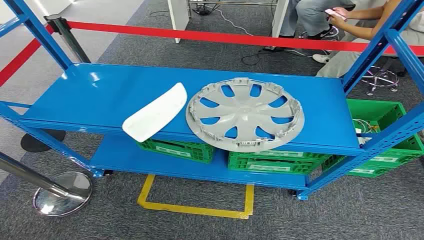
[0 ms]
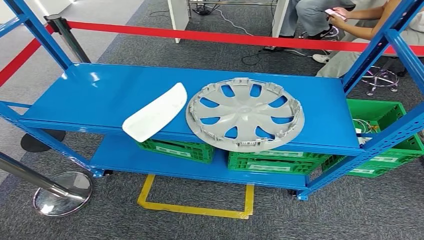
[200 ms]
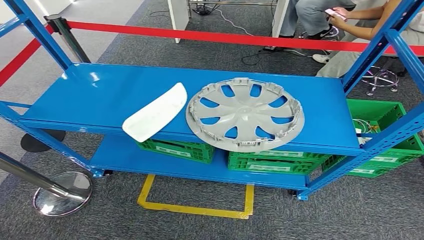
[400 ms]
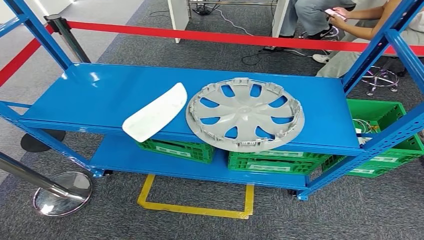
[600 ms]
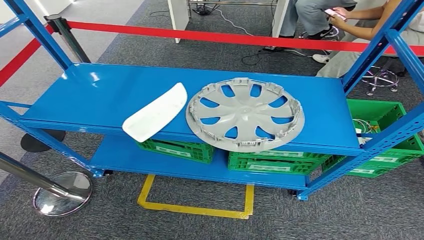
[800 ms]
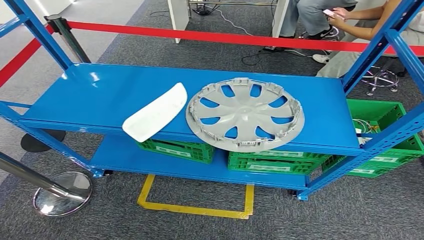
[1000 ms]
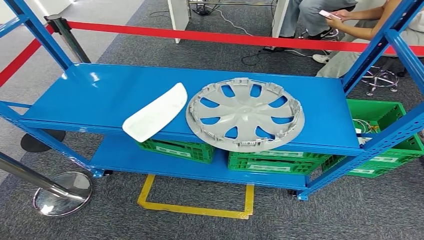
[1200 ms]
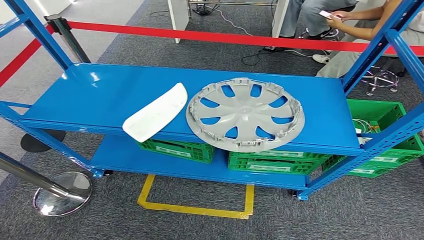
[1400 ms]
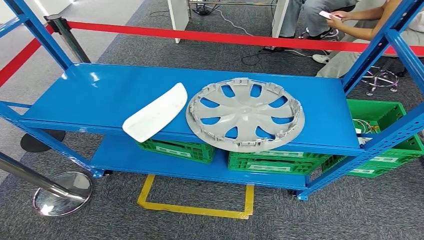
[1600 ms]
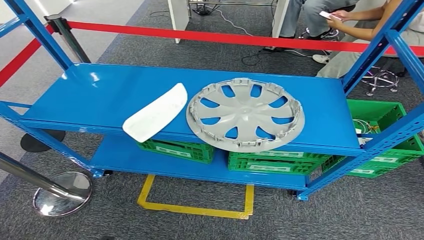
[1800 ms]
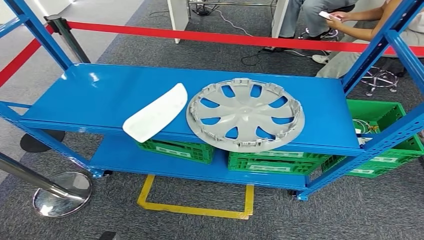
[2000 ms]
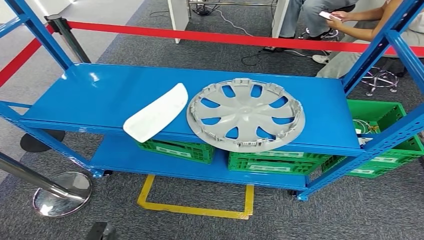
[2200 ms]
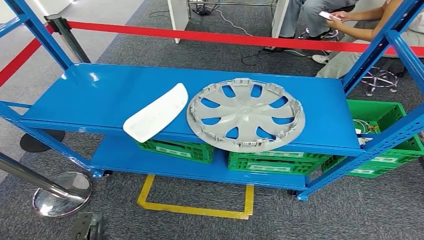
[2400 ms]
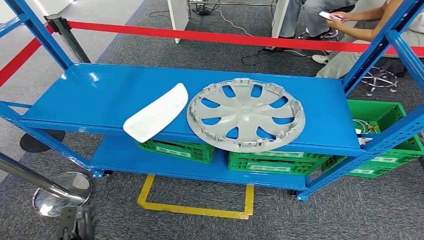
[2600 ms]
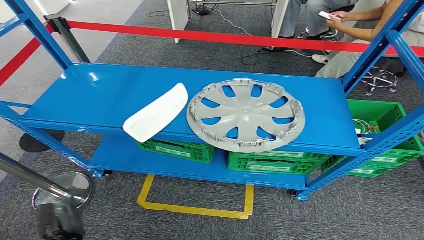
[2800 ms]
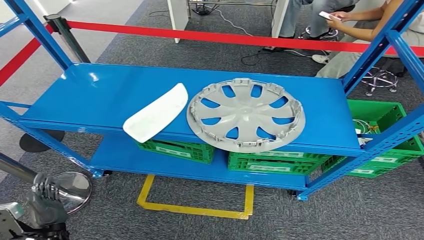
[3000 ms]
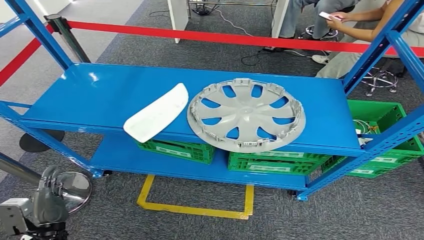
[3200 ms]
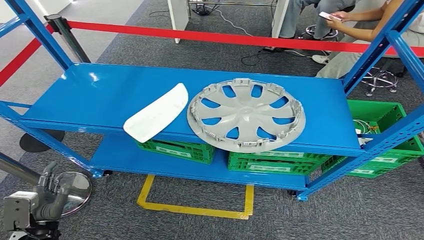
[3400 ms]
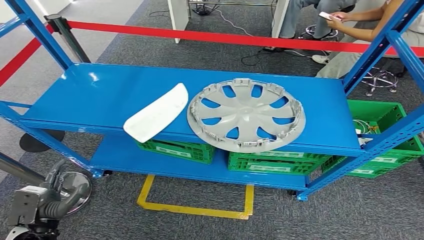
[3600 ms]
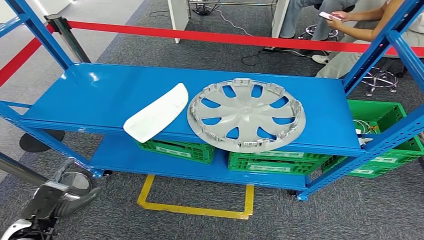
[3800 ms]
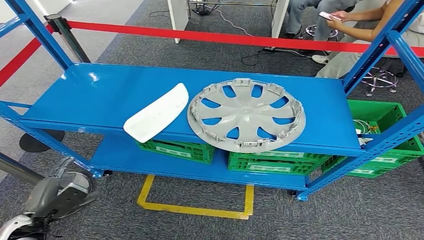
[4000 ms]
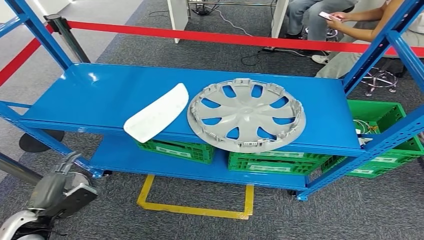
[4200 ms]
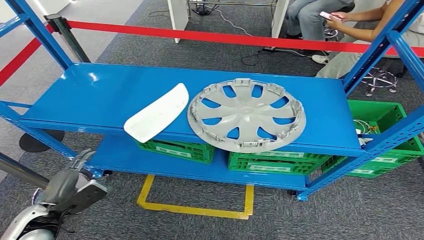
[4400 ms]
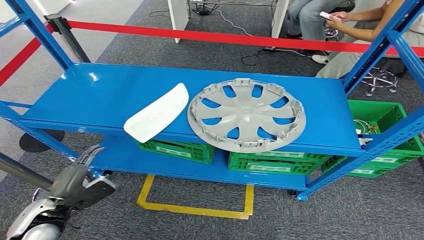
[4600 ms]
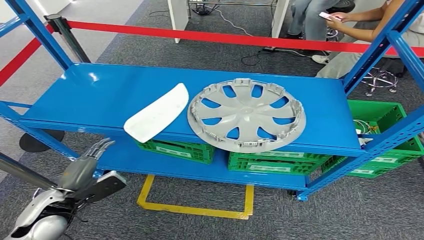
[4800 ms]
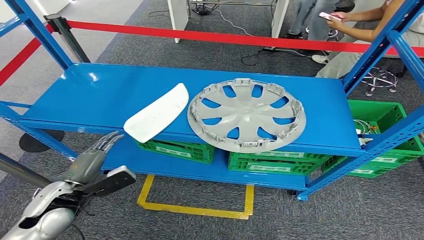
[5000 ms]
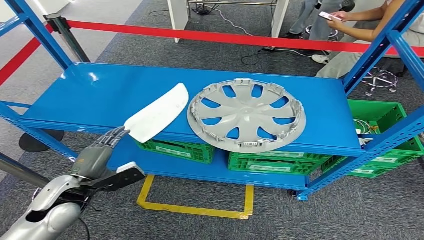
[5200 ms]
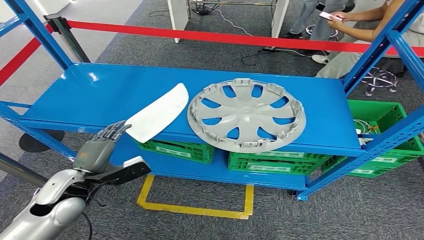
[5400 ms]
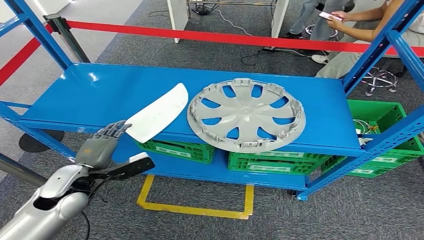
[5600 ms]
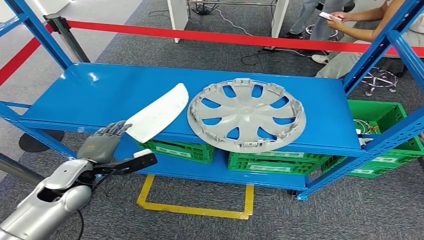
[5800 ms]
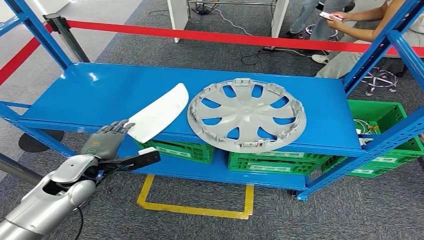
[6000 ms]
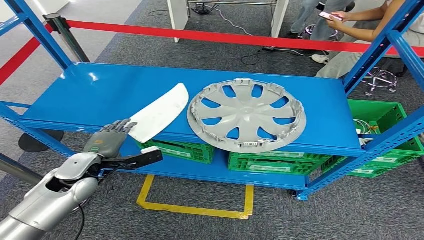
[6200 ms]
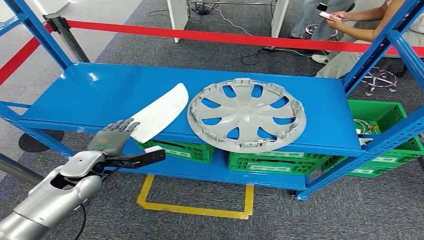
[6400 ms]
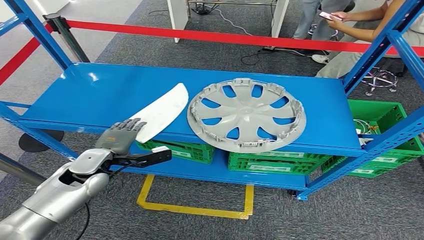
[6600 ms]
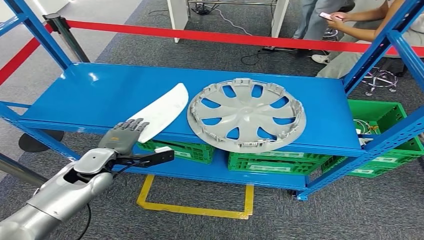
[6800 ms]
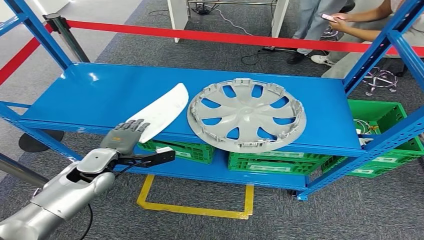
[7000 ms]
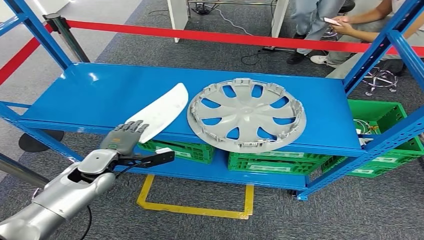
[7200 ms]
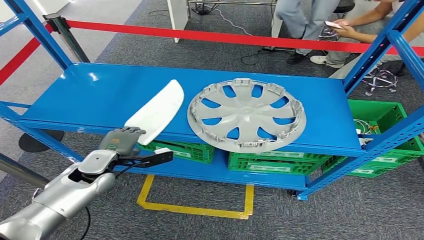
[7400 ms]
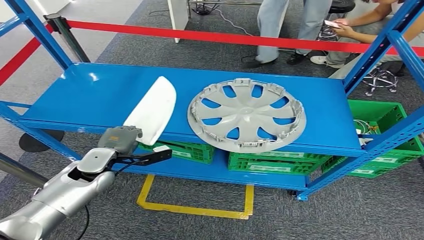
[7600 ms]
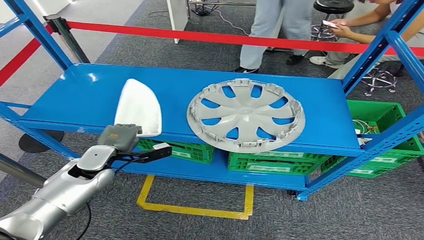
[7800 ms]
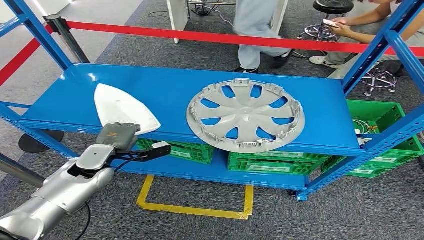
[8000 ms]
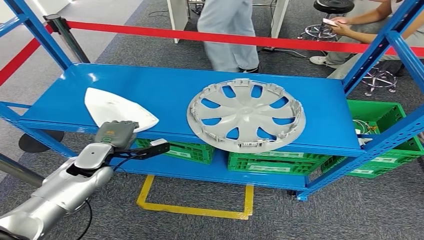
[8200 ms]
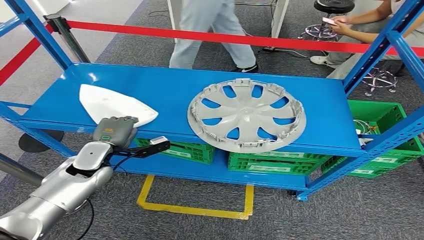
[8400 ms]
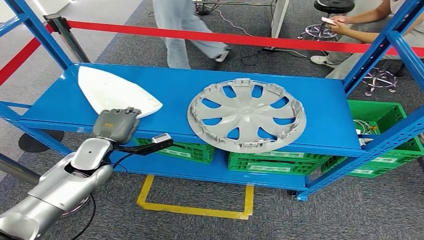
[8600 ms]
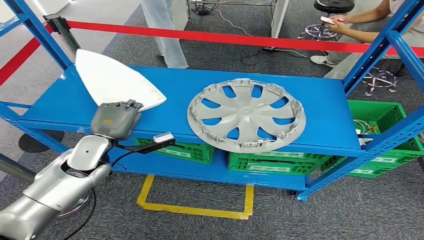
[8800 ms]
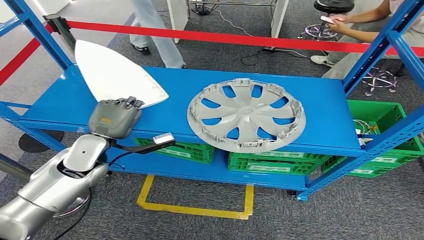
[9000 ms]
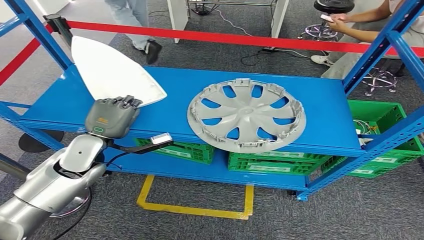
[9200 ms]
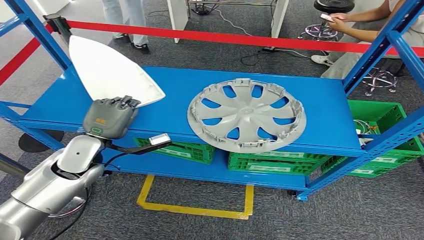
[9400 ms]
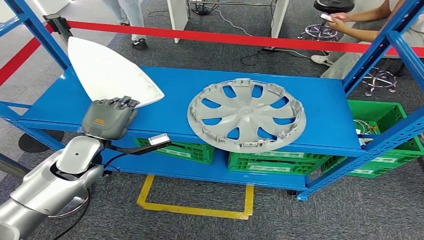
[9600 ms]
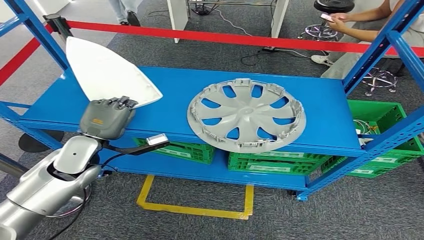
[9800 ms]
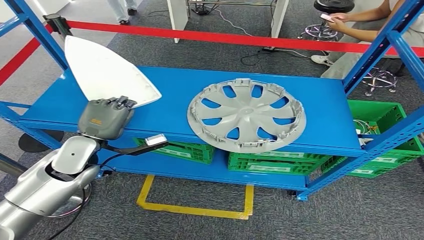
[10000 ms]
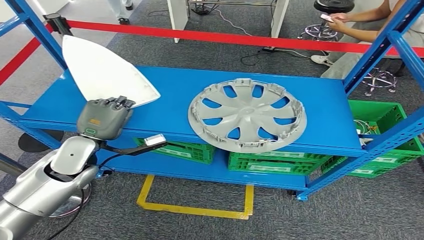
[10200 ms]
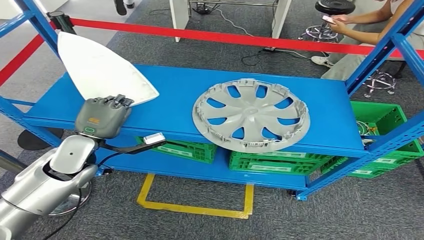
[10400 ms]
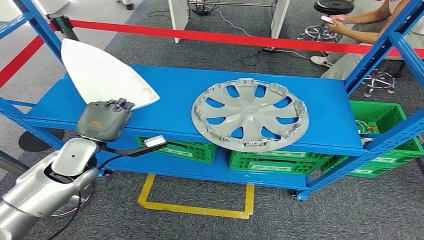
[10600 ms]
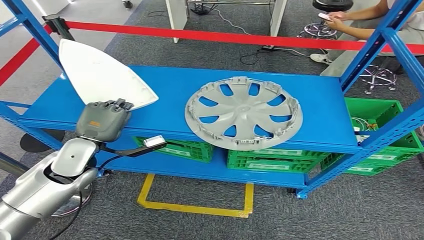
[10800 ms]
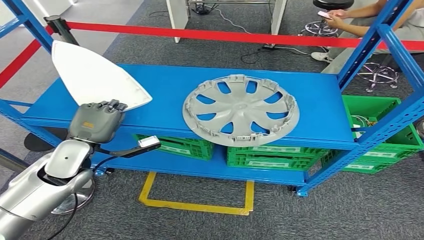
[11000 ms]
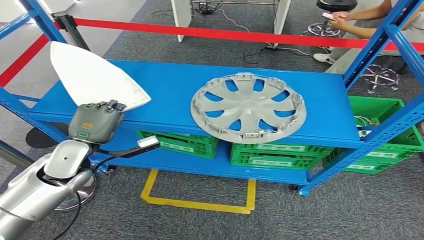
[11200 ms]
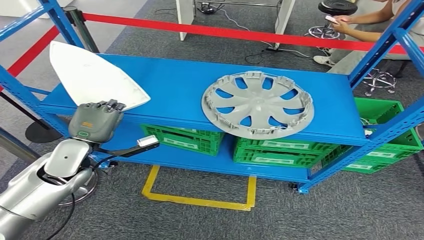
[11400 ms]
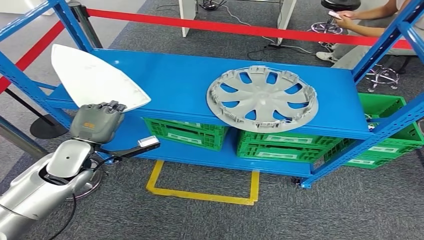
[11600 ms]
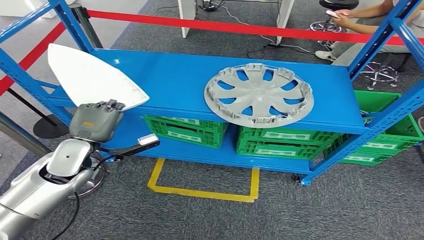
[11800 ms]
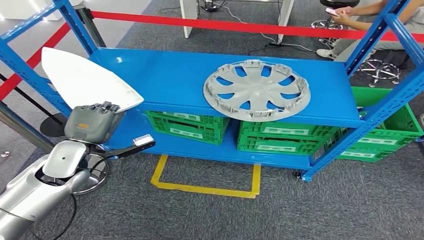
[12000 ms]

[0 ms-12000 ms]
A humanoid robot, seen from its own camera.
Step, 0 ms to 11600 ms: Pick up the small component from the shelf.
1600 ms to 3000 ms: The left hand shifts approximately 15 cm upward and forward.
3000 ms to 4400 ms: The left hand goes about 10 cm upward.
4400 ms to 6000 ms: The left hand goes about 15 cm forward and to the right.
6000 ms to 7600 ms: The left hand moves roughly 5 cm.
7600 ms to 9000 ms: The left hand shifts some 10 cm upward.

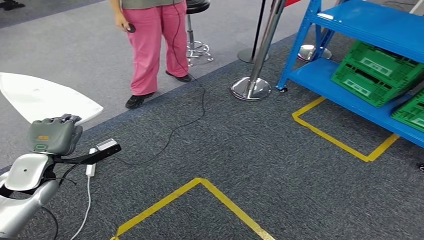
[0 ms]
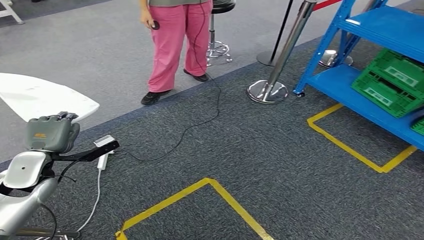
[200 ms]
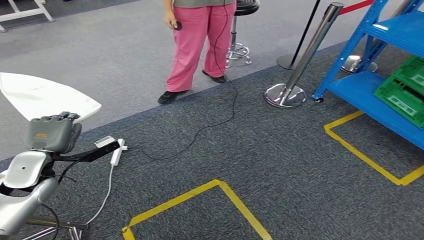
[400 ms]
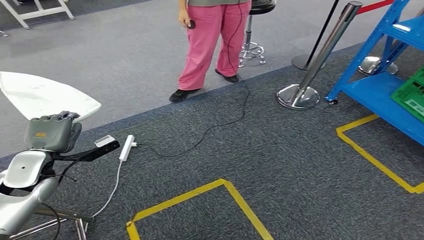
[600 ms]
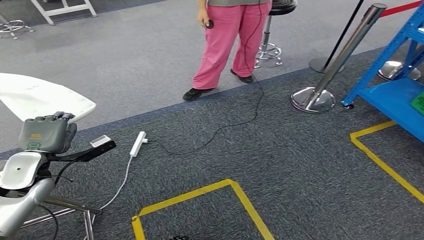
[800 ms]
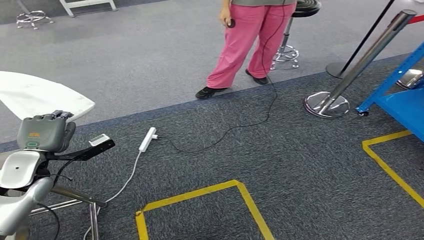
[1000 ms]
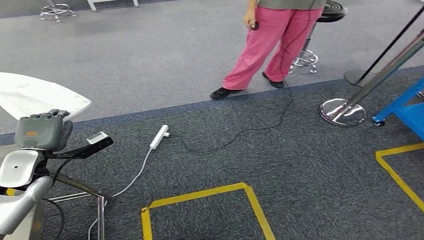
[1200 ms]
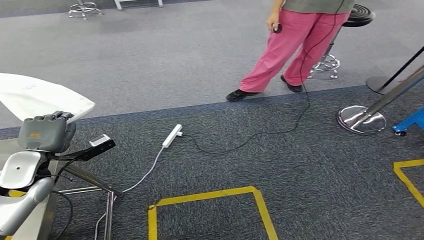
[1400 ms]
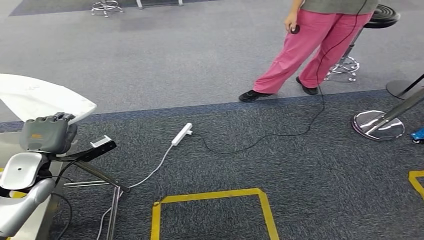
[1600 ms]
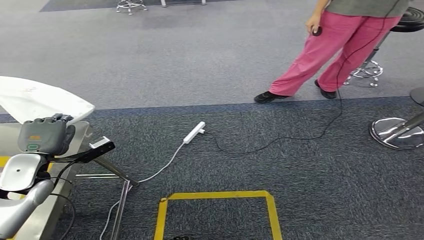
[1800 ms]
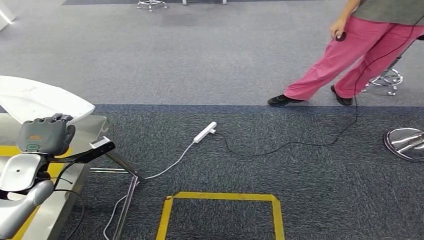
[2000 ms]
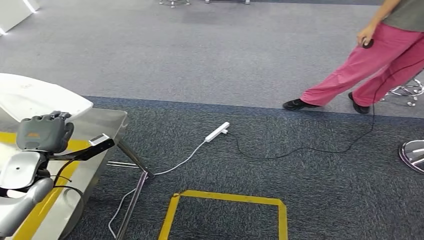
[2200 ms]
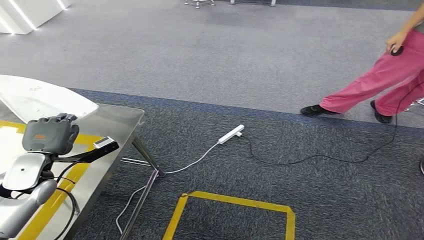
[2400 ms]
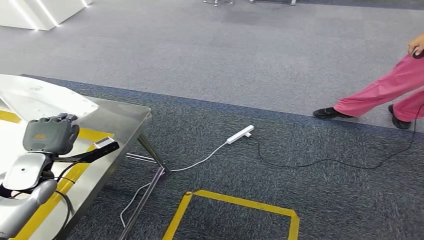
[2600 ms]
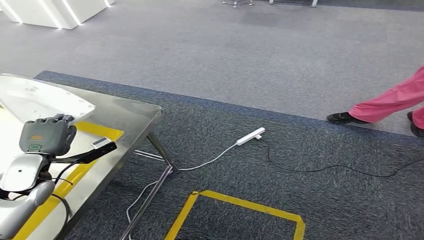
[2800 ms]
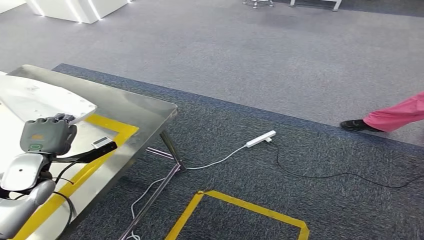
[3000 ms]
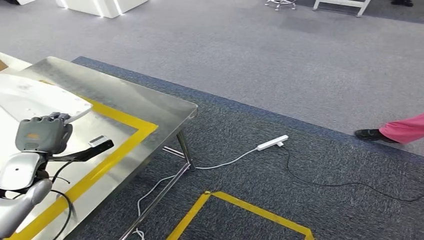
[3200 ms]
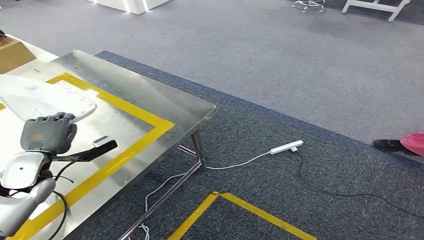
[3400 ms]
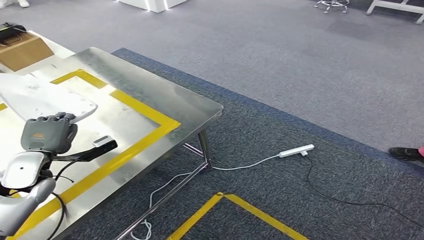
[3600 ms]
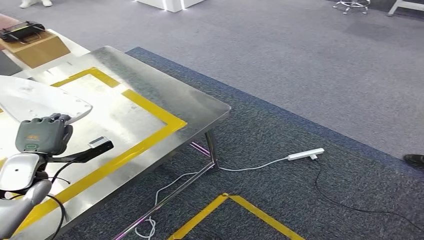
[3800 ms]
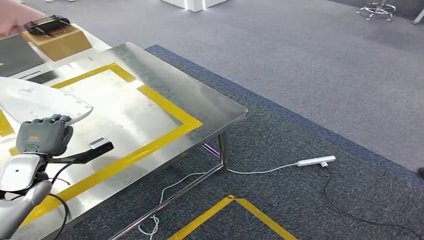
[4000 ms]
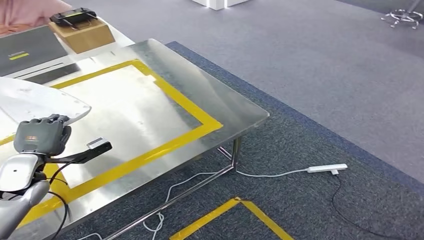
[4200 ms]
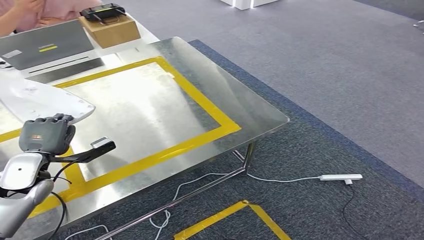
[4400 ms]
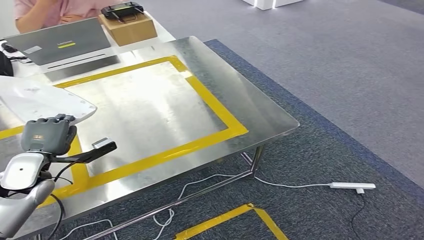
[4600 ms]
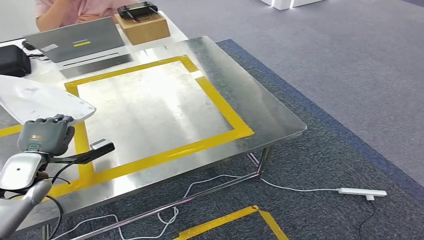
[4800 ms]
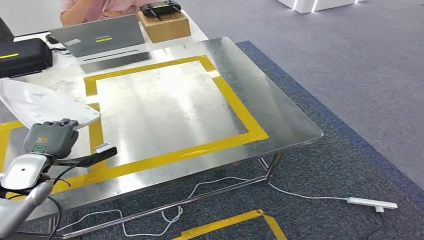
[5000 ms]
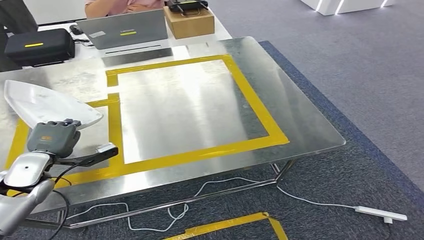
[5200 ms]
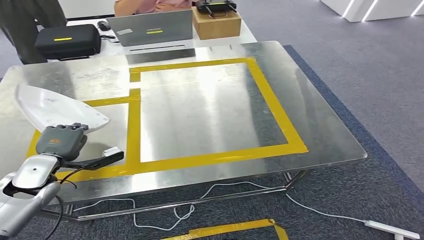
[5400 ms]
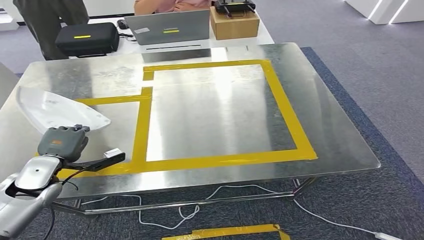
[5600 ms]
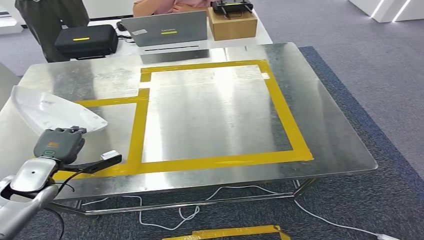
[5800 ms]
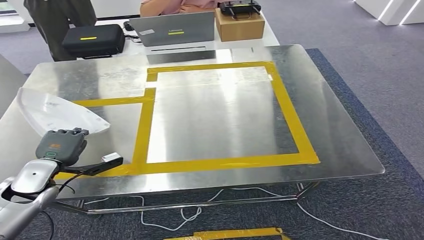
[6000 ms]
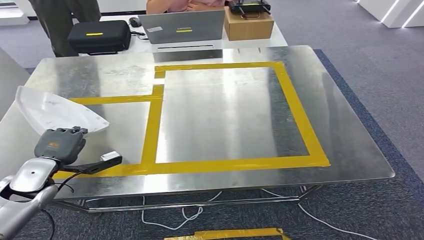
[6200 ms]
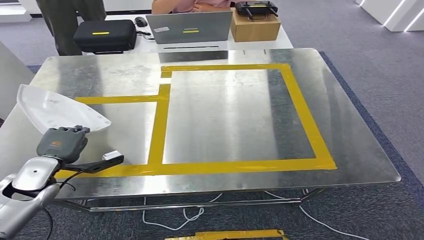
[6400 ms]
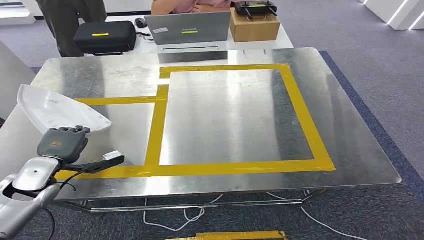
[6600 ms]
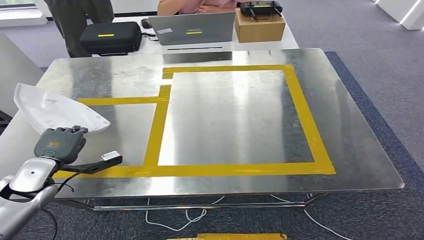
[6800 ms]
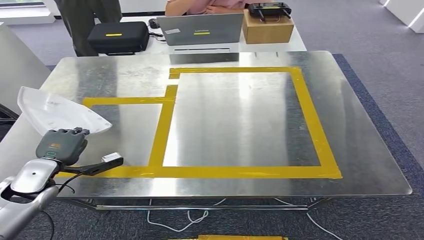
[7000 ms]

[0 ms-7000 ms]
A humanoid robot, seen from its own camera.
Step, 0 ms to 4800 ms: Move the small component to the workbench.
